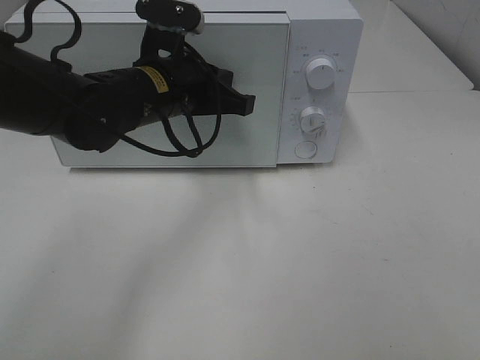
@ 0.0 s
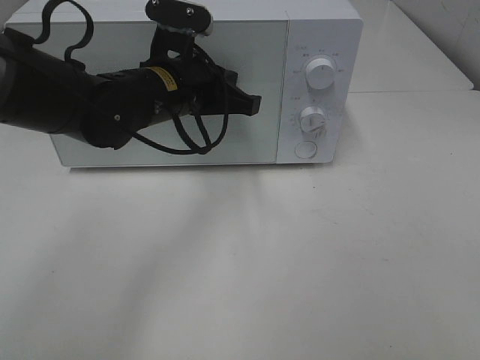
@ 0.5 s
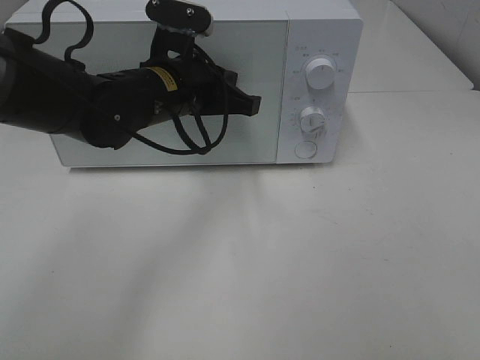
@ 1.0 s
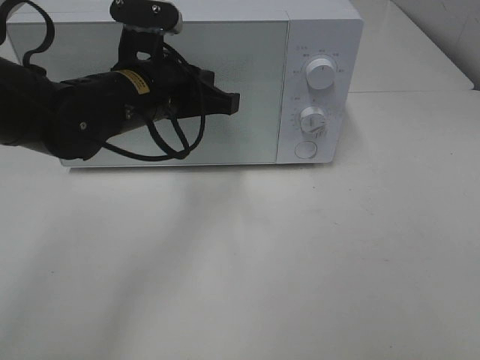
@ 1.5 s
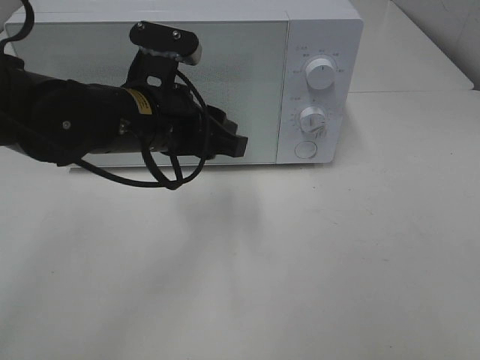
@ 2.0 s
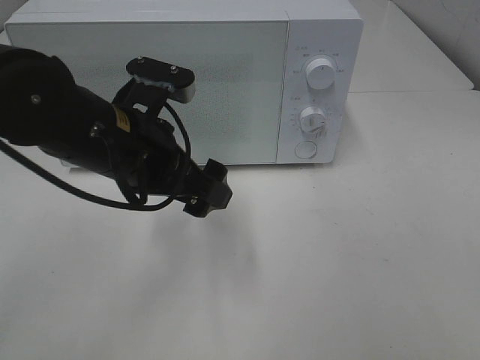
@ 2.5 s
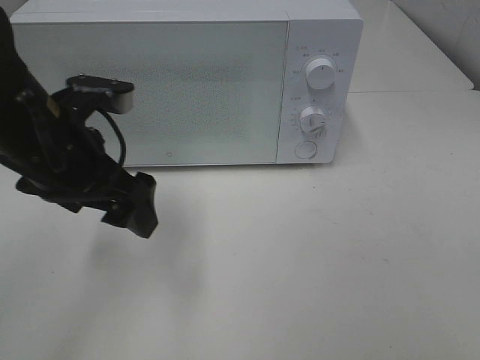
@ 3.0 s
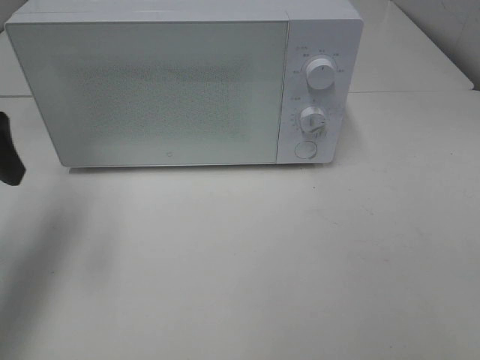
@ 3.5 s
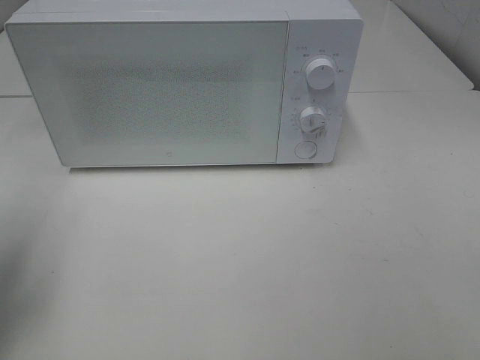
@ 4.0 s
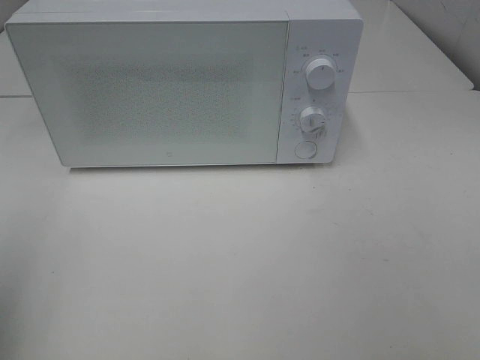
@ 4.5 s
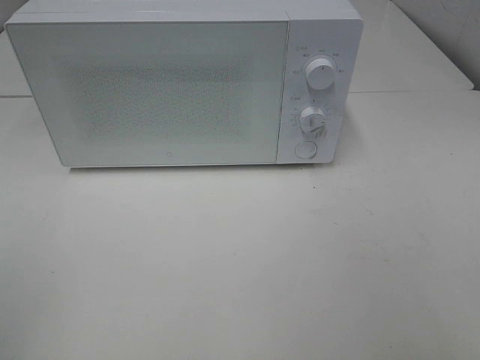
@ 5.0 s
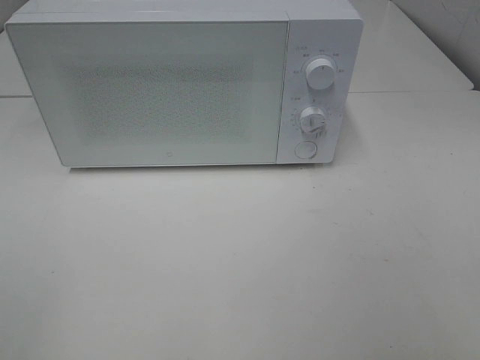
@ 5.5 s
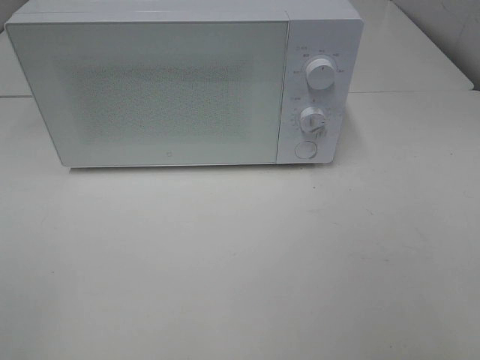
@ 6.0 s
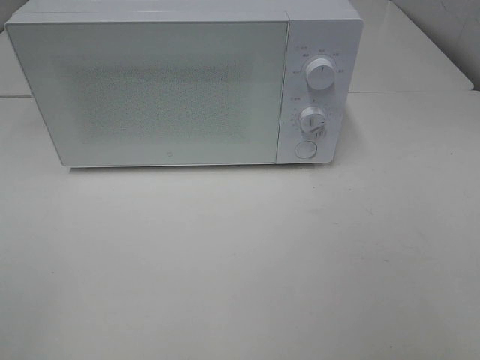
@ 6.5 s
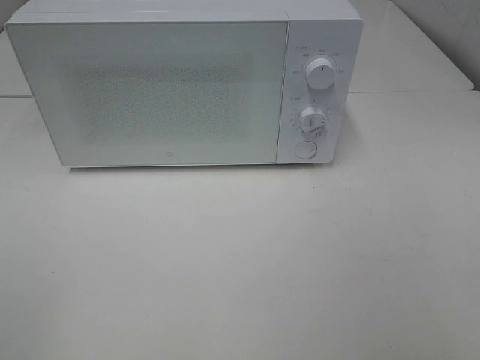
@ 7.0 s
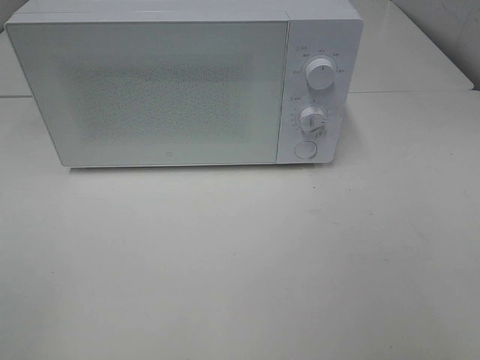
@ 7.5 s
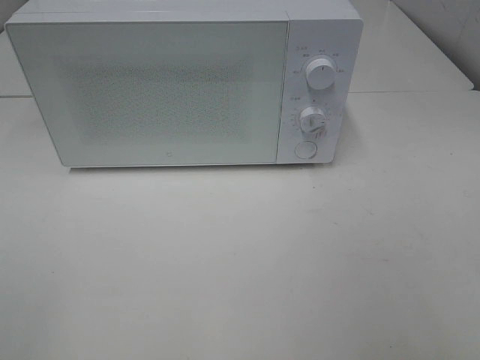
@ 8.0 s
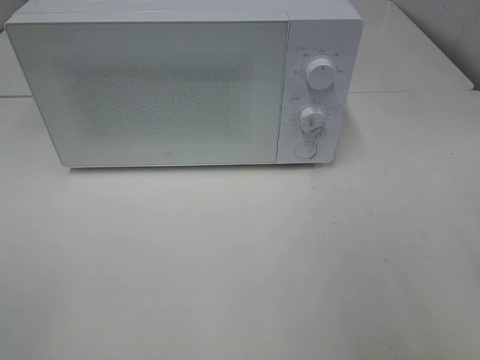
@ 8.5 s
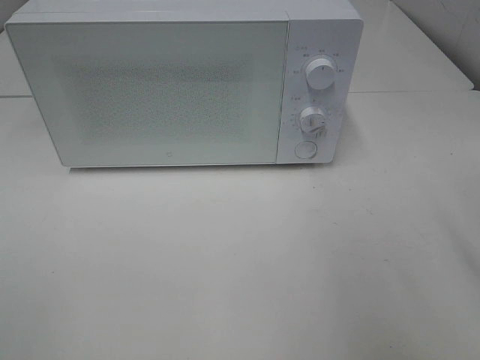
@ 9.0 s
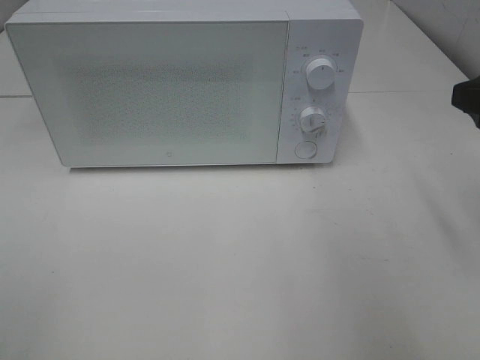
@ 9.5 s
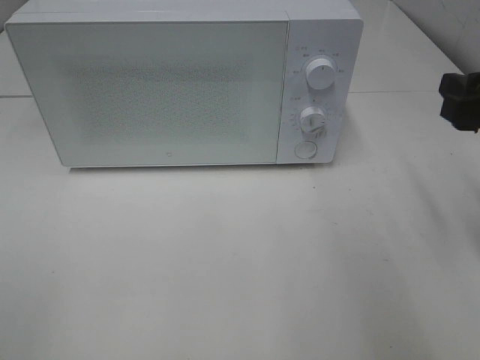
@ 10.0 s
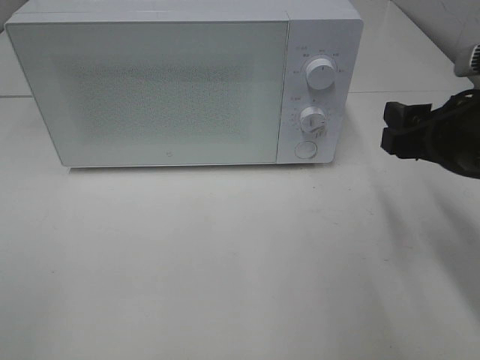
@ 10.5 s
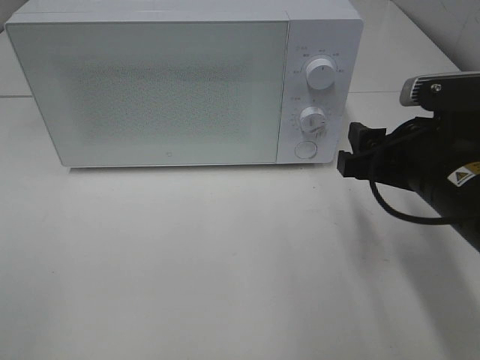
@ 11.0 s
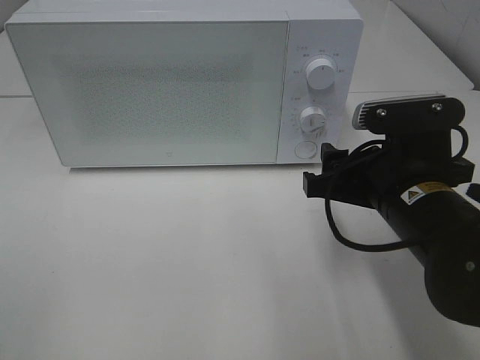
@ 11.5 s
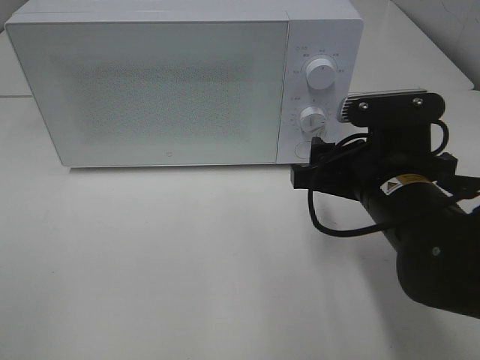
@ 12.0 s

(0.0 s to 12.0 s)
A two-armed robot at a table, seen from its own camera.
Task of the whole recording: Heat Sandwich.
0.0 s - 2.0 s: The left gripper travels backward by about 5 cm, and opens.
2.0 s - 4.0 s: The left gripper shifts some 25 cm to the left, and opens up.
4.0 s - 6.0 s: The left gripper goes some 20 cm backward.
8.0 s - 10.0 s: The right gripper shifts approximately 20 cm forward.
10.0 s - 12.0 s: The right gripper moves to the left and downward, about 15 cm.

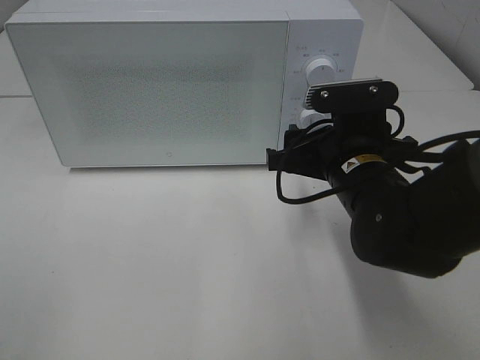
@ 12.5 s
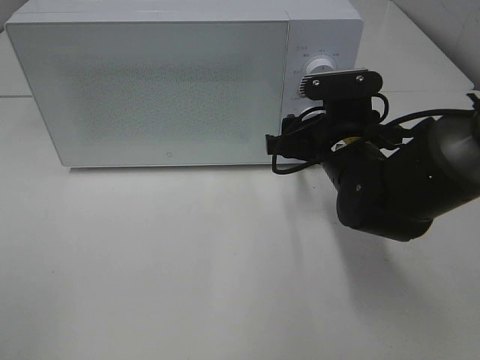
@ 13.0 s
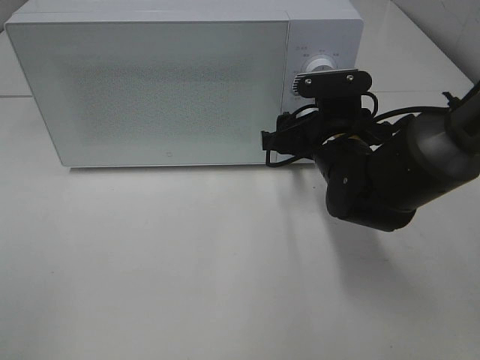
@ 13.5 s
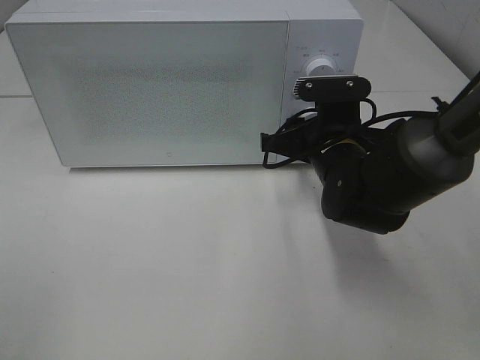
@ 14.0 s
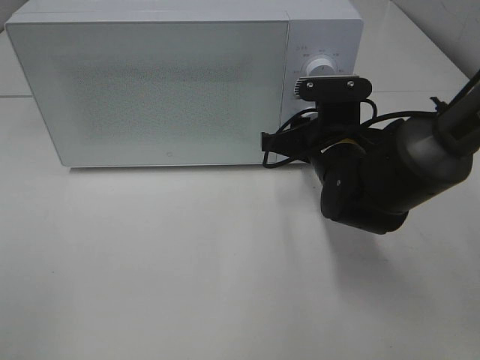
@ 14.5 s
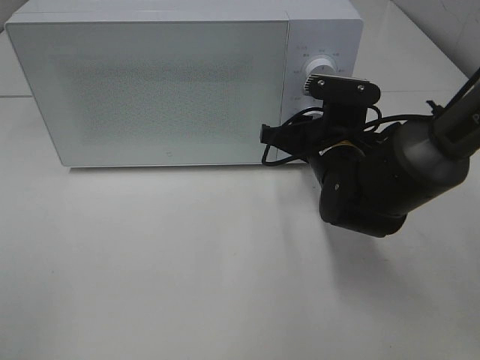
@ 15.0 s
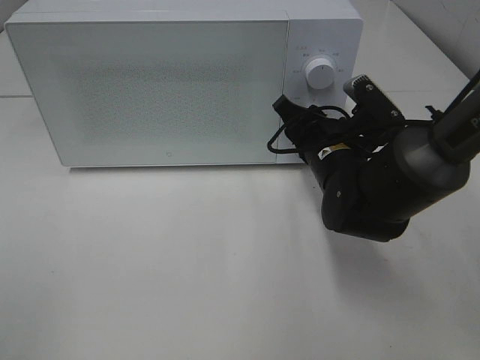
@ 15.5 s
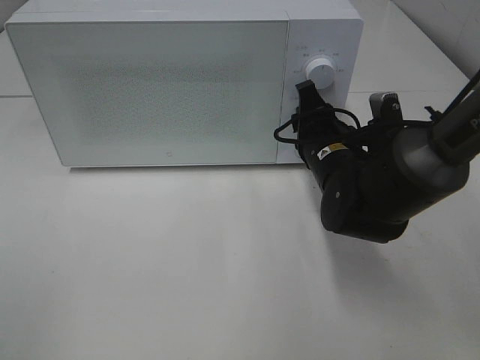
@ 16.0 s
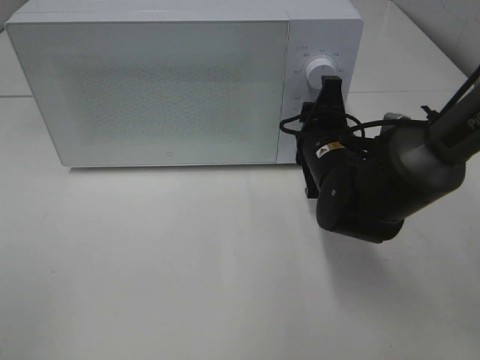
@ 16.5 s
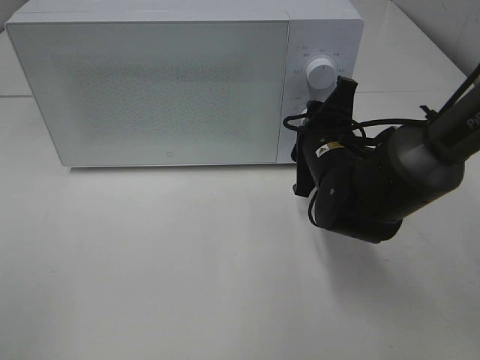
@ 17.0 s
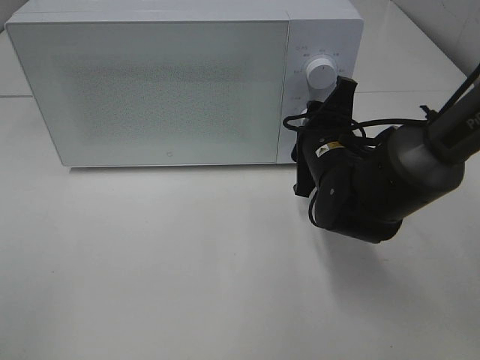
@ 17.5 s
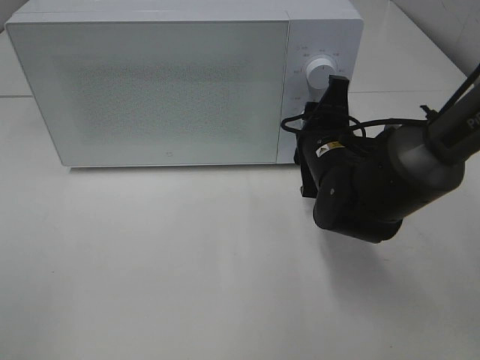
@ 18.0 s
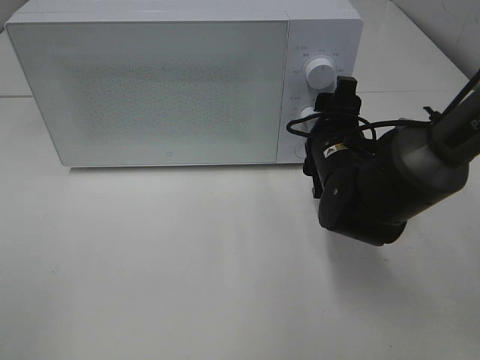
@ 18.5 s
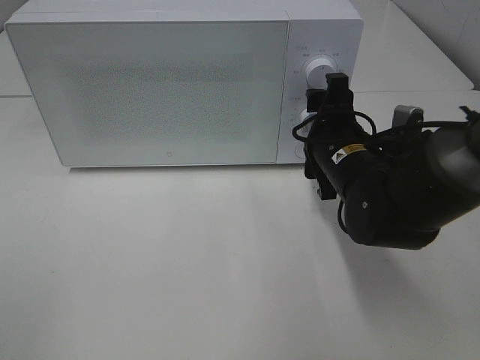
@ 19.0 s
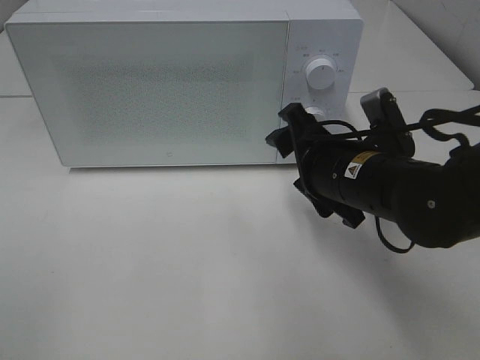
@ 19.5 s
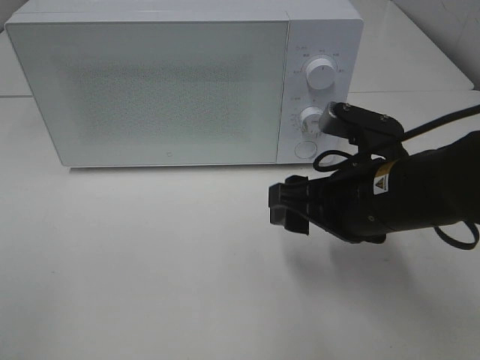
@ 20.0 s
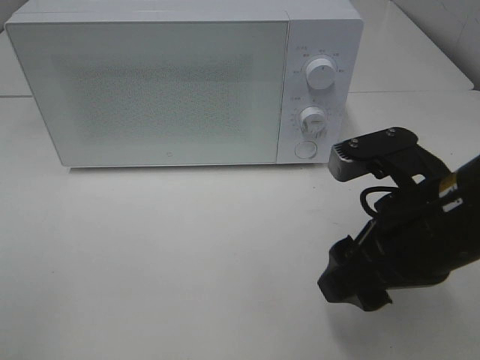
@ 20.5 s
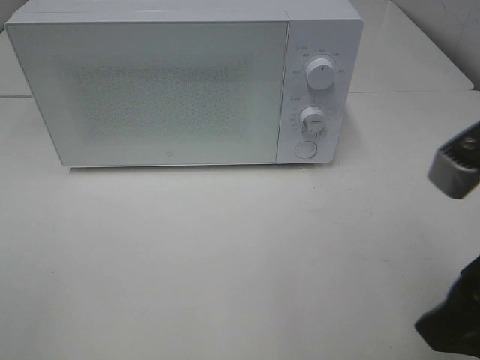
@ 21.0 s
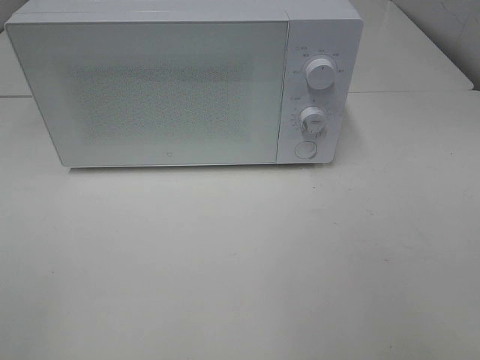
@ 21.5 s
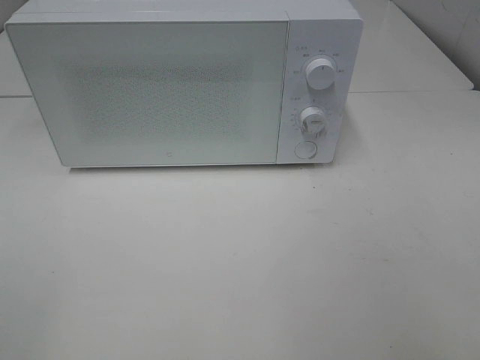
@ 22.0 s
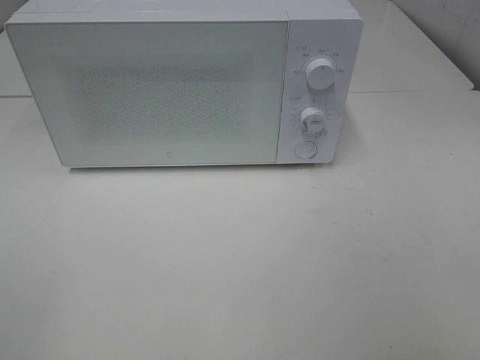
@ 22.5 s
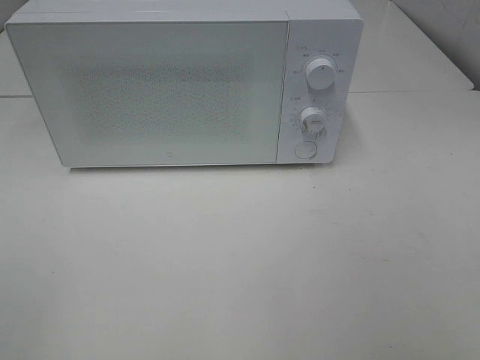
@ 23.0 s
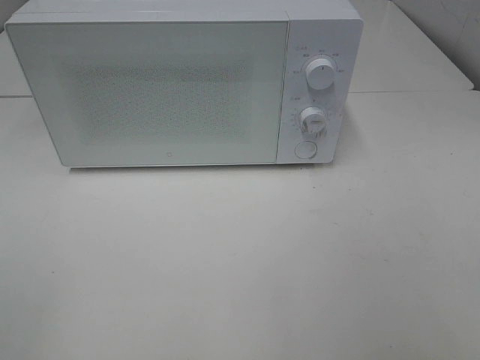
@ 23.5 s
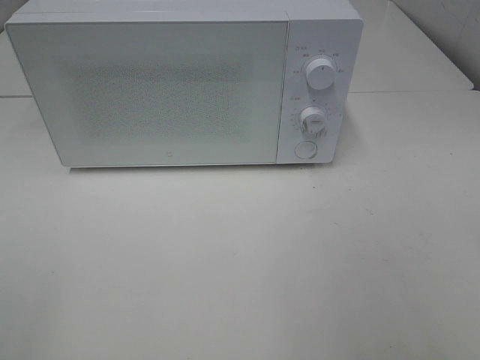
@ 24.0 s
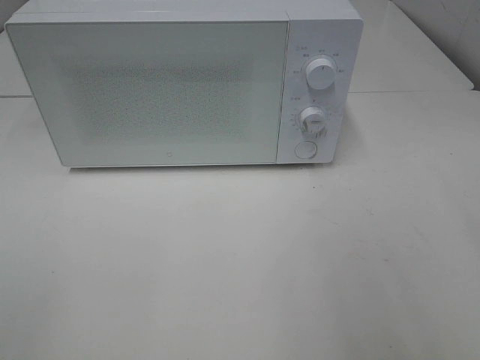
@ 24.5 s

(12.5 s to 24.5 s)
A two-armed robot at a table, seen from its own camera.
Task of the whole recording: Heat Sandwich.
Step, 12.5 s - 19.0 s: Right hand: twist timer button.
12.5 s - 14.5 s: The right gripper travels forward by some 5 cm.
16.5 s - 18.5 s: The grippers stay close to where they were, moving slightly.
18.5 s - 20.5 s: The right gripper moves backward and upward, about 15 cm.
20.5 s - 22.5 s: The right gripper heads backward, to the right and upward, covering approximately 20 cm.

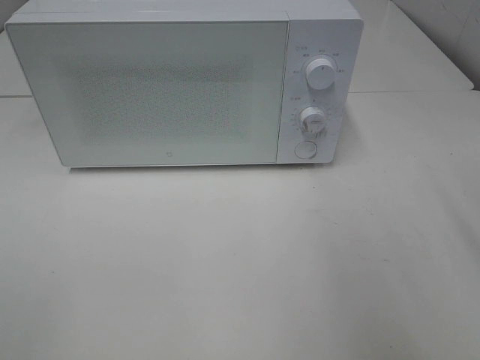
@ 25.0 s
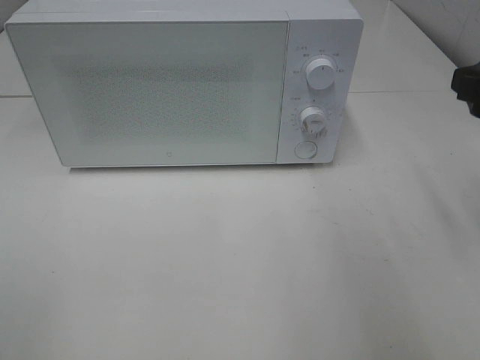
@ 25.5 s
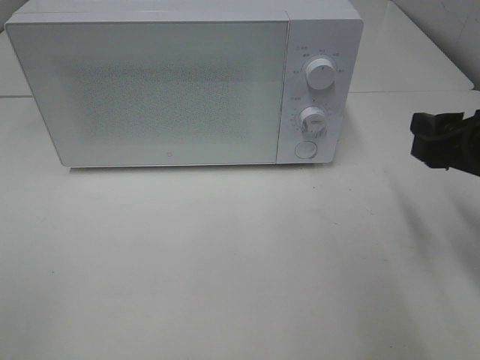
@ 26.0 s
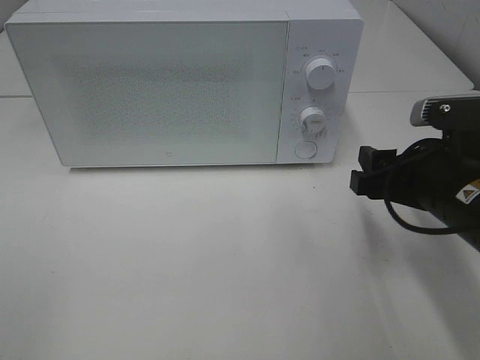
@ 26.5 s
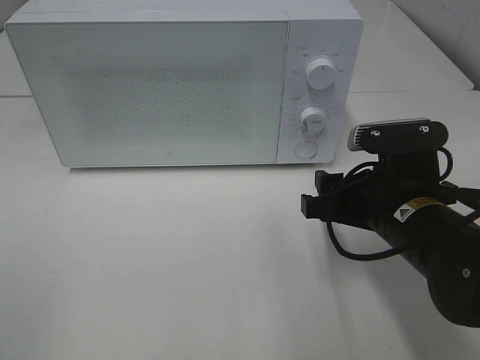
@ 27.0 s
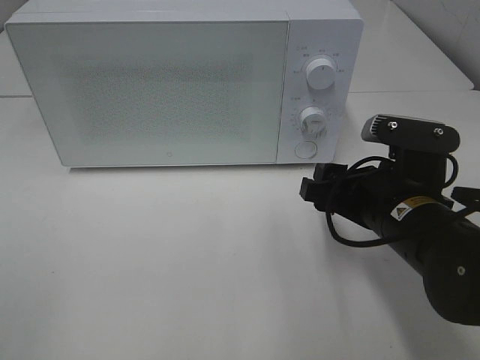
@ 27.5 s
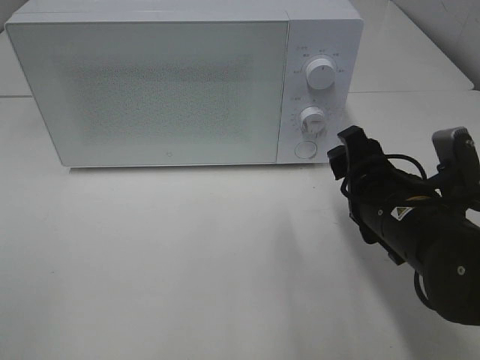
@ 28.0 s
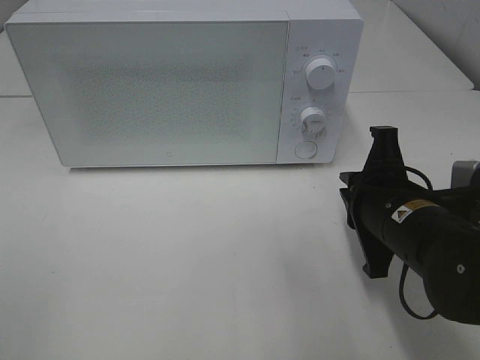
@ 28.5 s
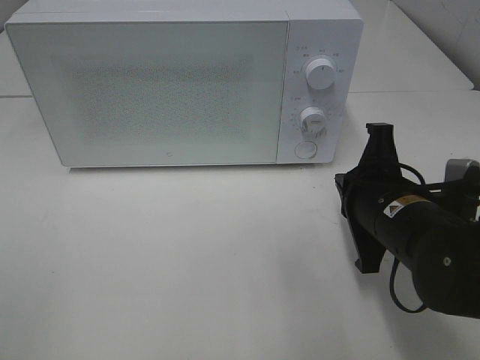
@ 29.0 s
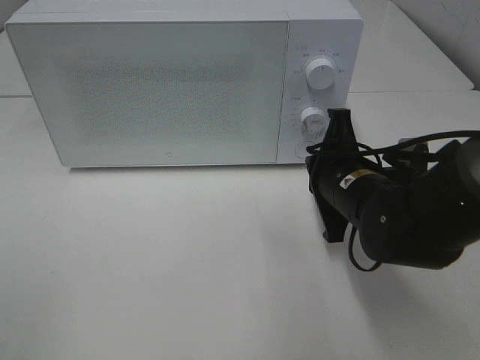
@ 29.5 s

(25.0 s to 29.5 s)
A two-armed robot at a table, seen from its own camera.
Task of the whole recording: Heat Sandwich.
25.0 s - 27.0 s: The right gripper moves downward and to the left, roughly 20 cm.
27.0 s - 29.5 s: The right gripper goes some 5 cm forward, and closes its fingers.
